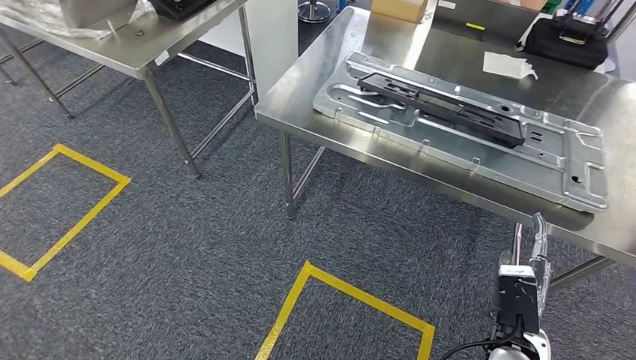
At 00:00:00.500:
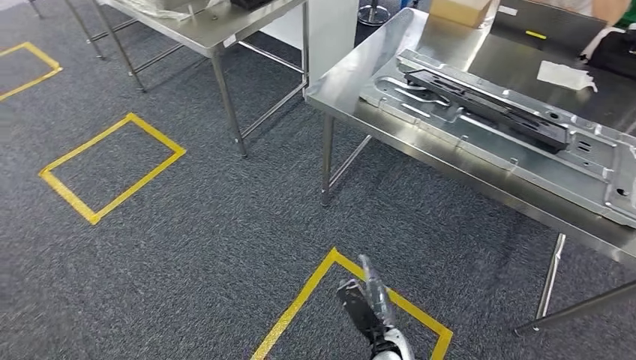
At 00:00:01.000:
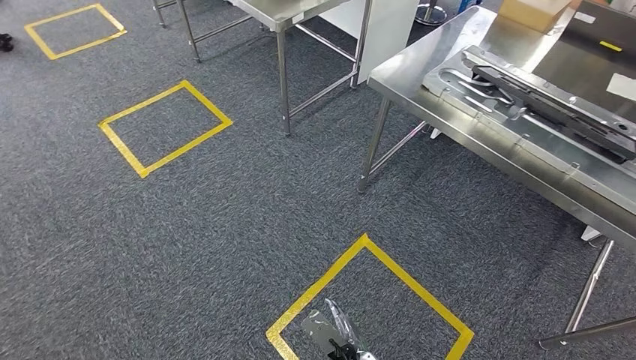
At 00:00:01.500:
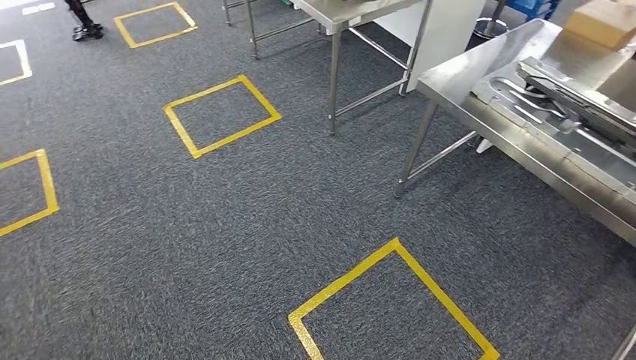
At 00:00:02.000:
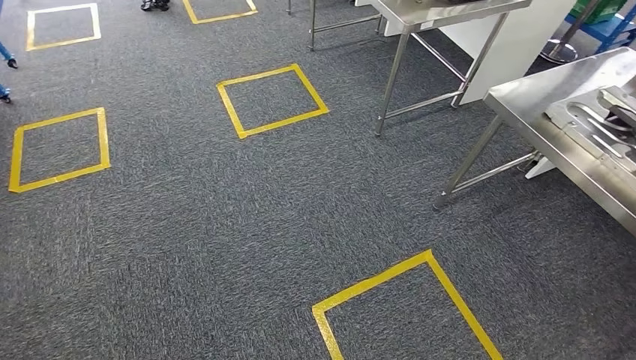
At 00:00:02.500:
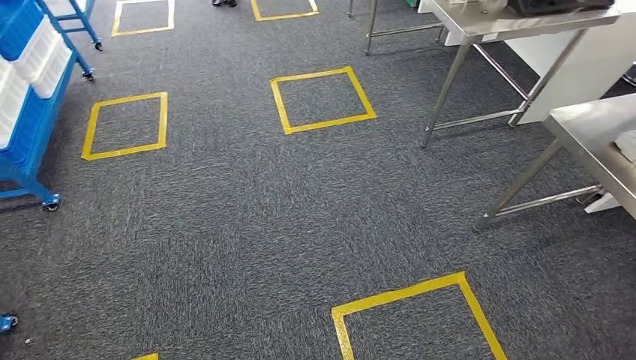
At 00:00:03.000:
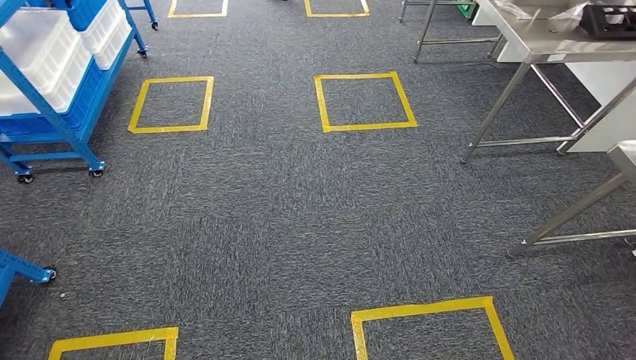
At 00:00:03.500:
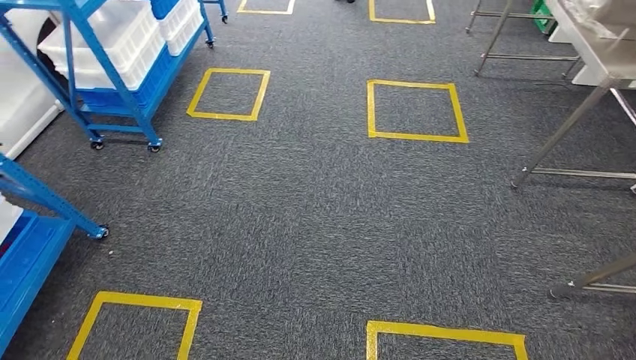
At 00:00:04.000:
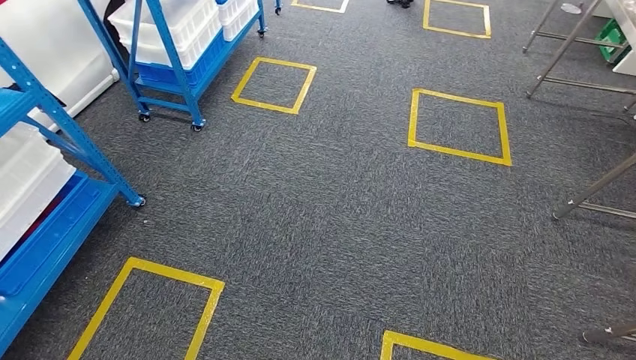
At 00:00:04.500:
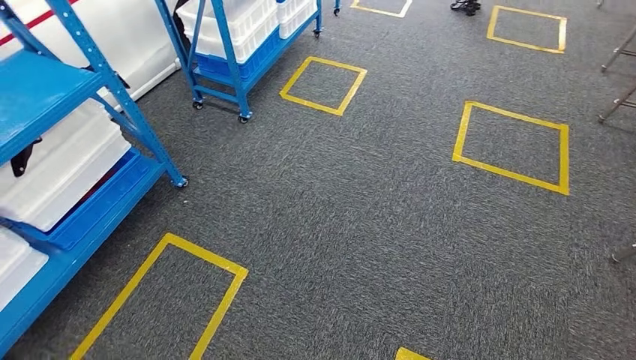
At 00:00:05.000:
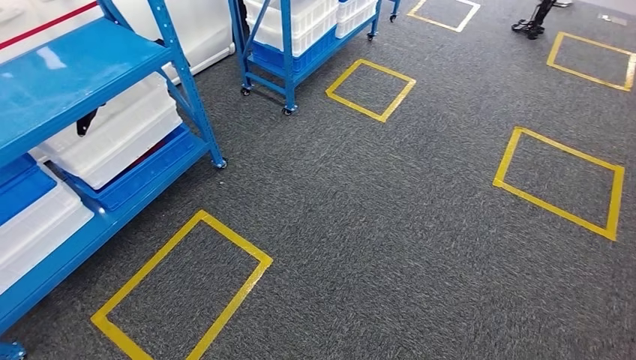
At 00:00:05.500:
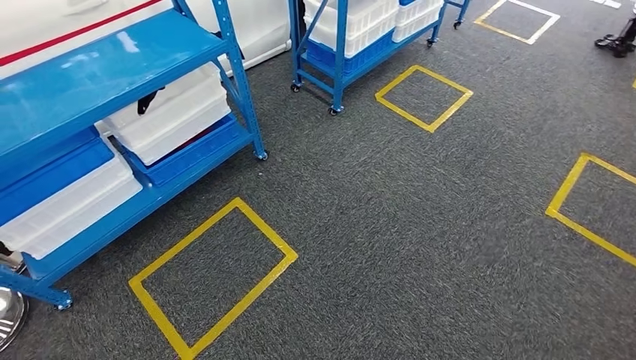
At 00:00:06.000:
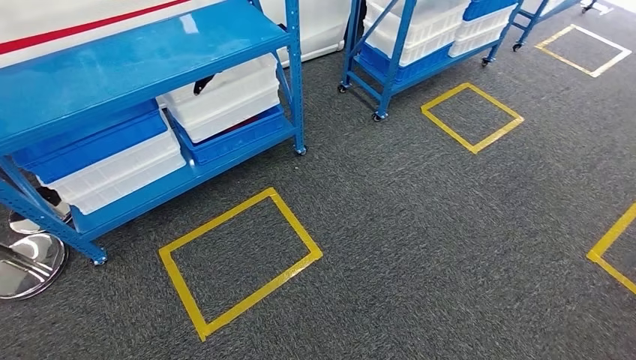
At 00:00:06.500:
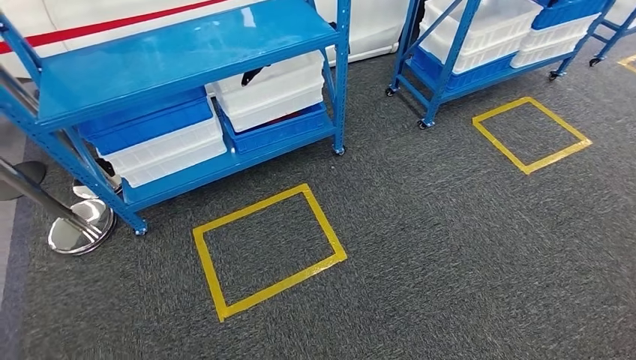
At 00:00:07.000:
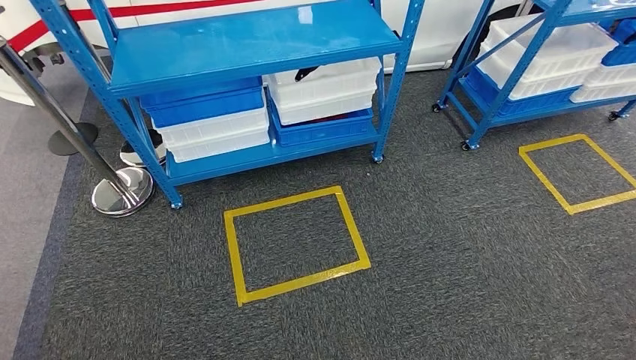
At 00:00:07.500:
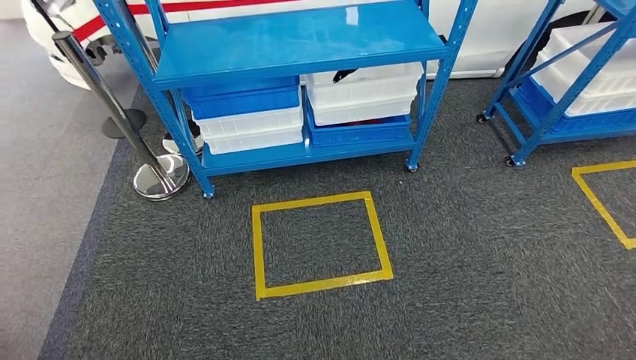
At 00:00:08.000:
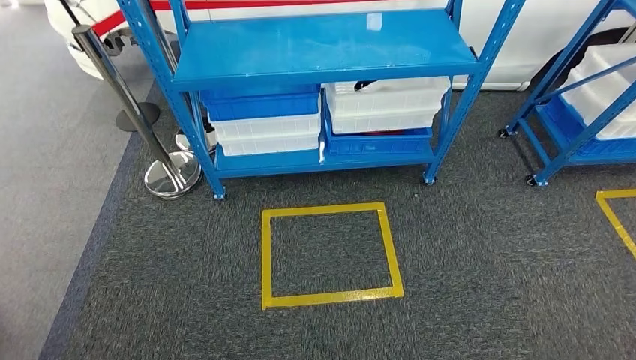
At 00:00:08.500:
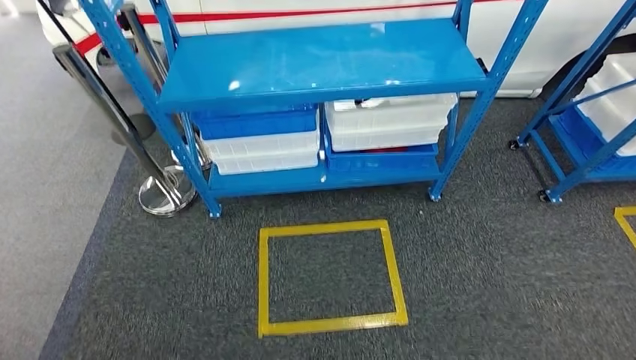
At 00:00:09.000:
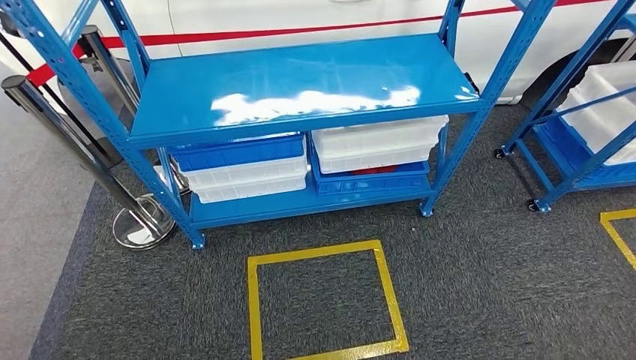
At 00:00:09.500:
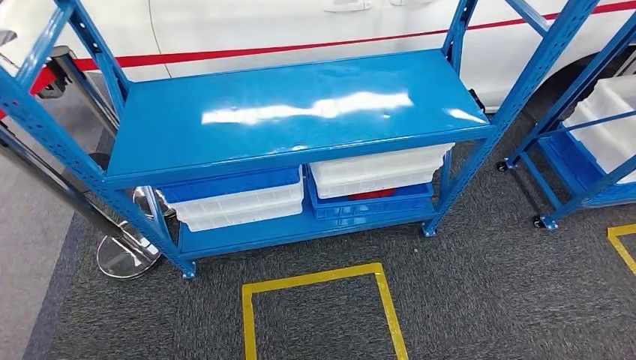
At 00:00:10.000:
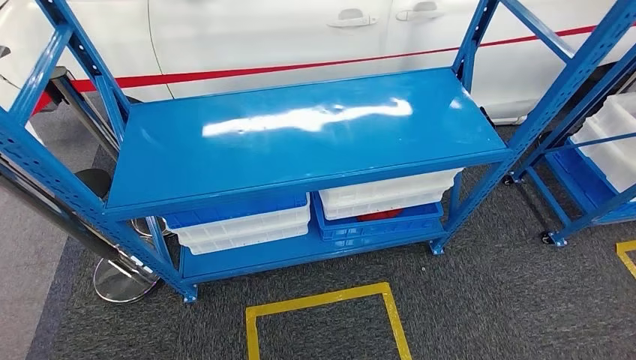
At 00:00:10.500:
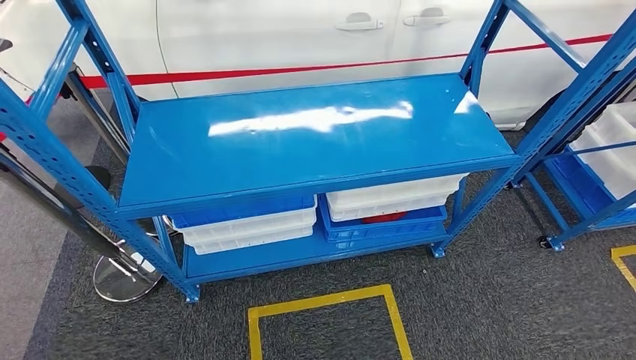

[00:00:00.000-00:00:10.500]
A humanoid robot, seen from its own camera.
Step, 00:00:00.000 to 00:00:10.500: Move to the initial position of the shelf.
